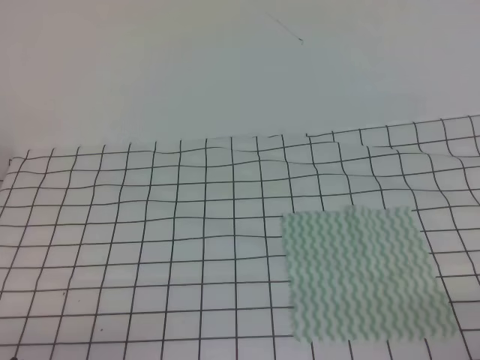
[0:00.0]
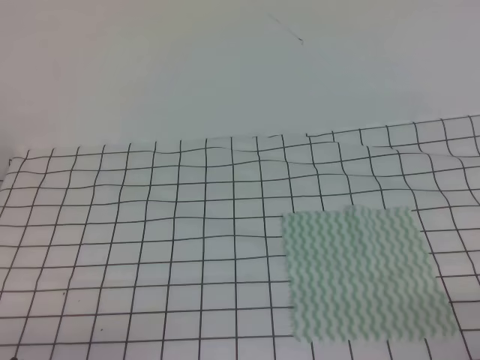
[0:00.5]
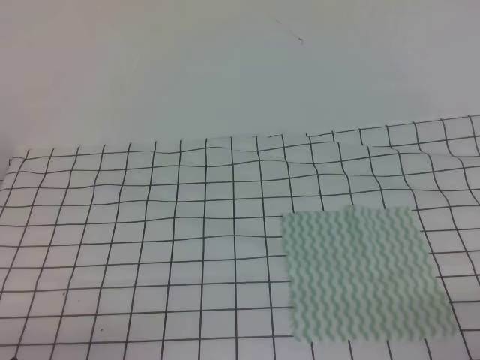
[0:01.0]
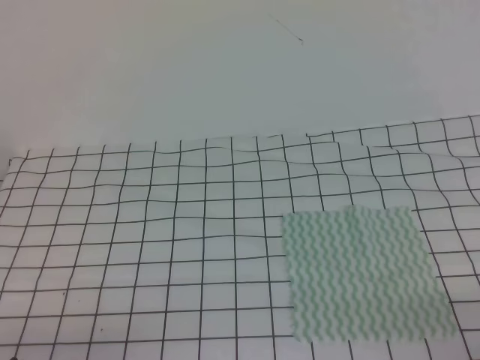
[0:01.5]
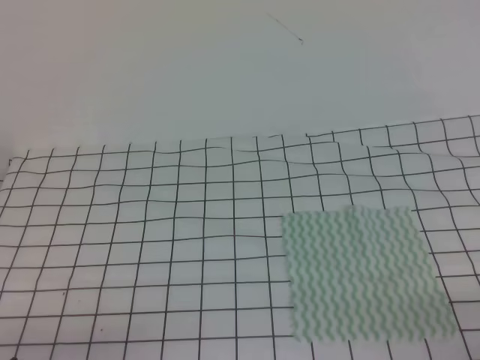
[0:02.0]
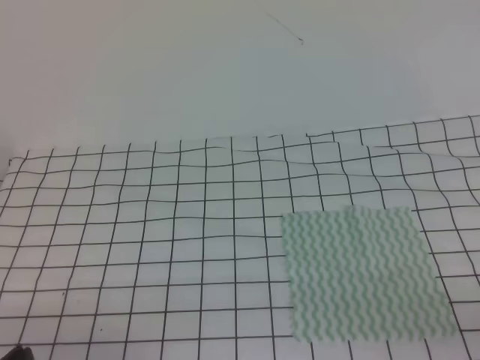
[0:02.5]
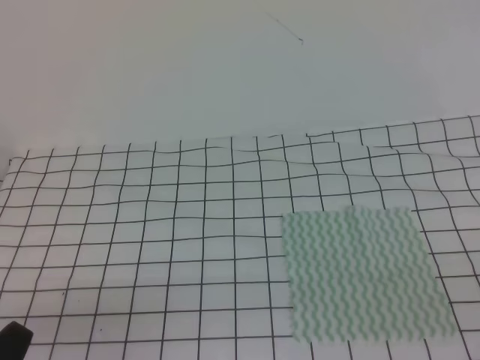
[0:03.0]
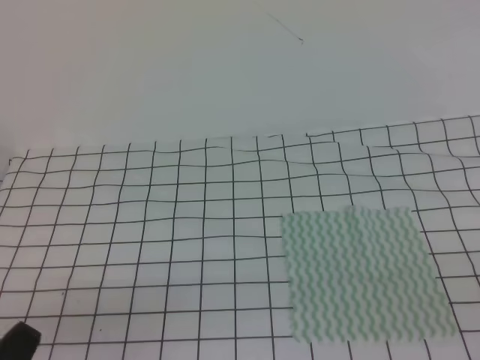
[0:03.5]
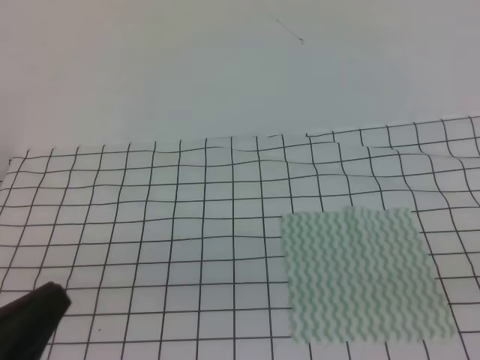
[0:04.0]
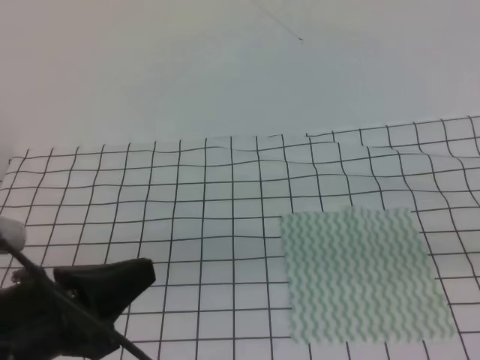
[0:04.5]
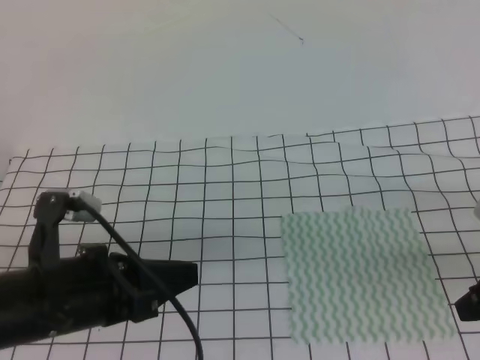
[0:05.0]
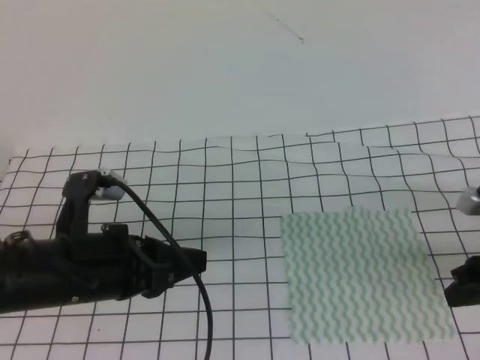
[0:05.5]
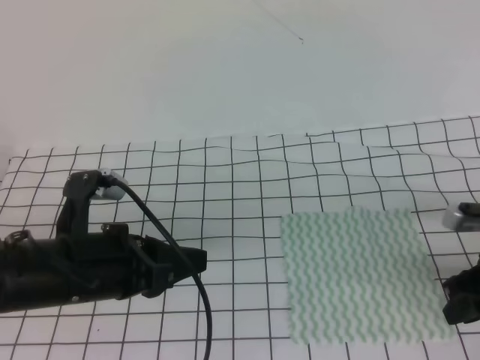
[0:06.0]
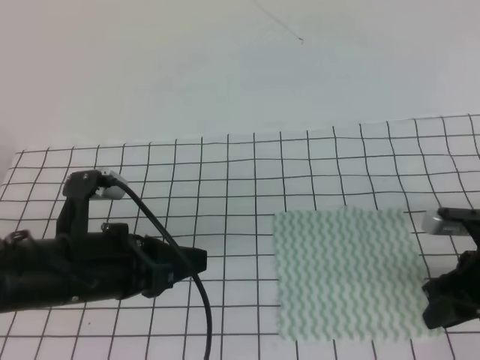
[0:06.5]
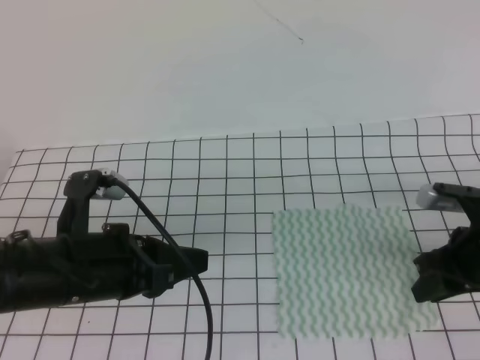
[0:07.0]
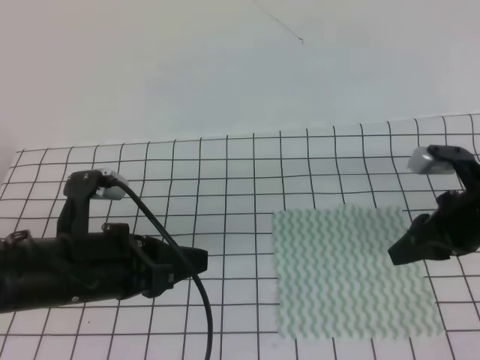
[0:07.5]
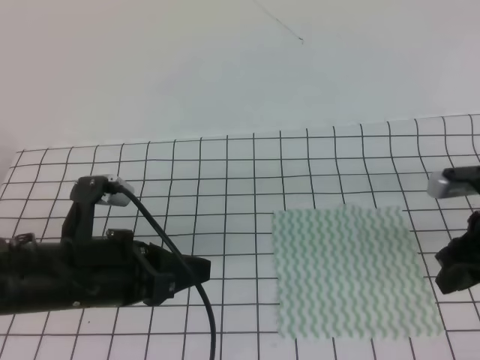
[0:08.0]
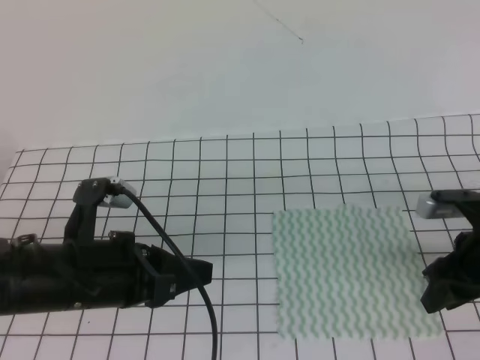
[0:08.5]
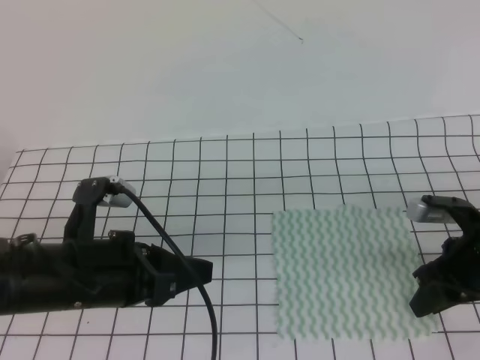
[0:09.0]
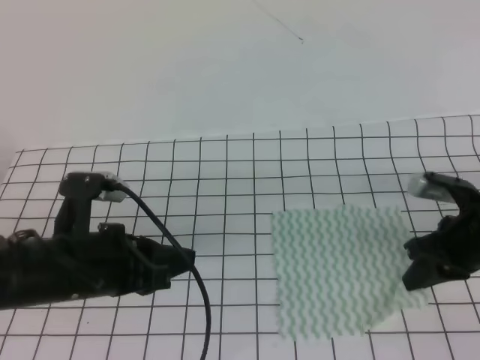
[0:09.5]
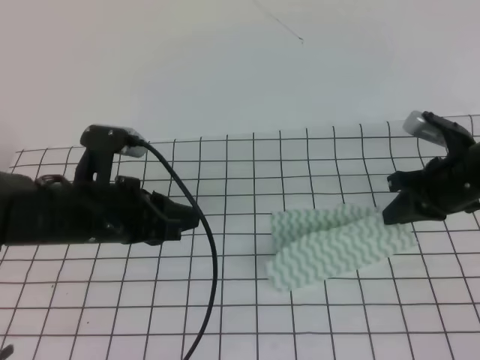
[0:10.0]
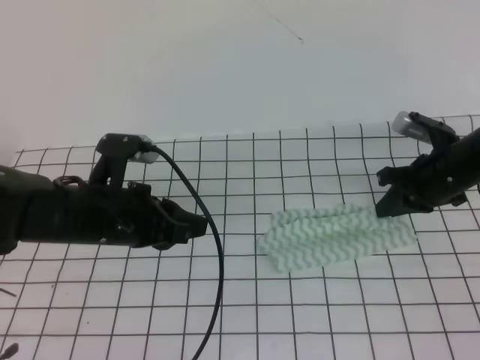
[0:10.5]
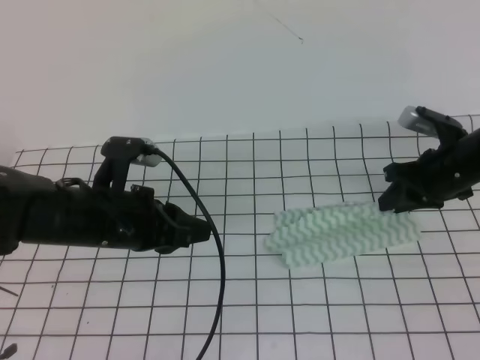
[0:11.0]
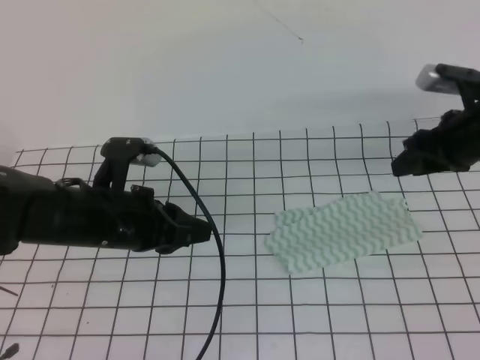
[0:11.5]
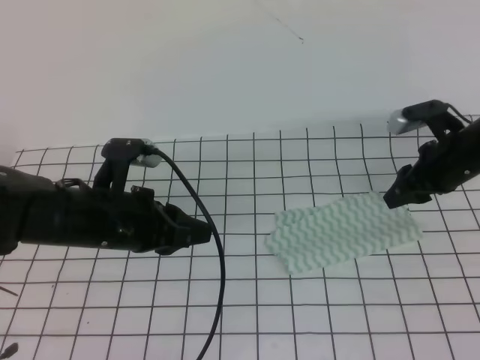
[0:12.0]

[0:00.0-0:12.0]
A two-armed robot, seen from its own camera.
Step, 0:00.0 to 0:07.5: Fold the towel upwards with the right gripper.
Step, 0:08.0 to 0:11.5: Tidy up the towels.
0:00.0 to 0:02.0: Both grippers stay about where they are.
0:02.0 to 0:04.0: The grippers both shift upward by approximately 10 cm.
0:04.0 to 0:06.0: The left gripper goes about 15 cm forward and to the right, and opens its fingers, while the right gripper travels forward and downward by about 25 cm, and opens its fingers.
0:08.0 to 0:10.0: Both grippers move forward, about 5 cm. The right gripper closes.
0:10.0 to 0:12.0: The right gripper opens its fingers.

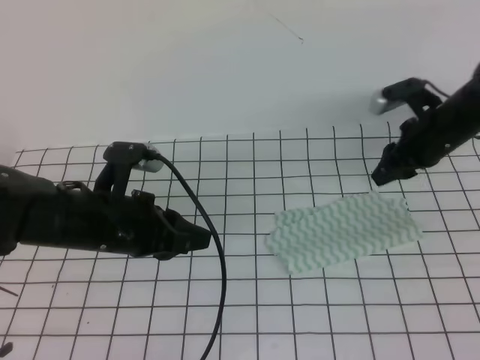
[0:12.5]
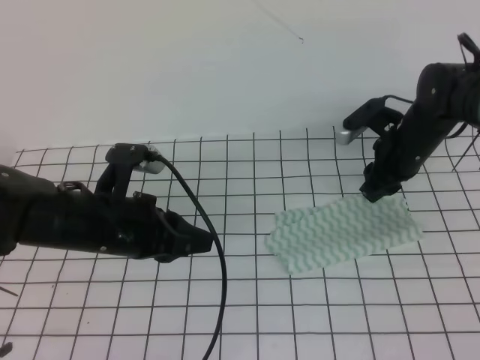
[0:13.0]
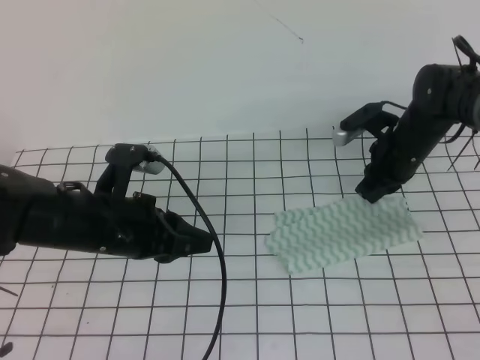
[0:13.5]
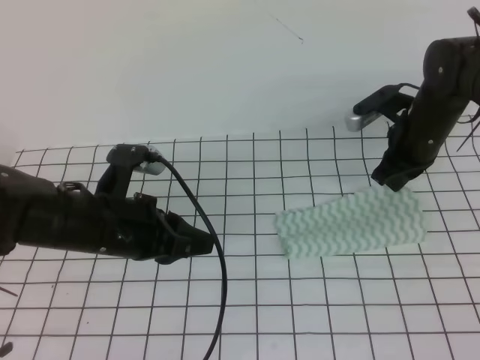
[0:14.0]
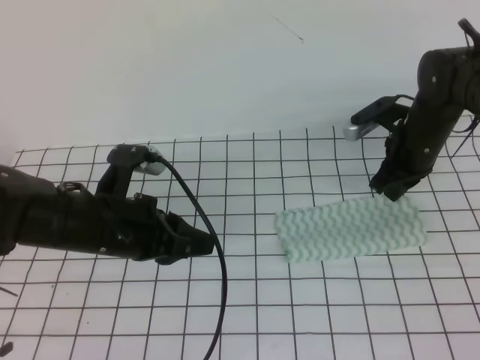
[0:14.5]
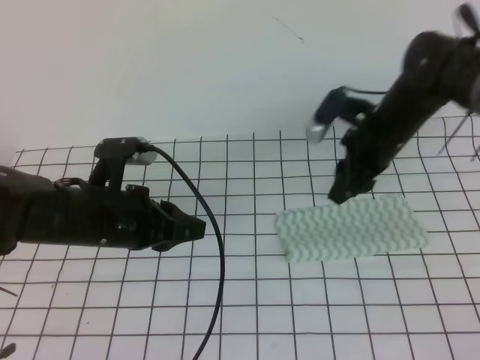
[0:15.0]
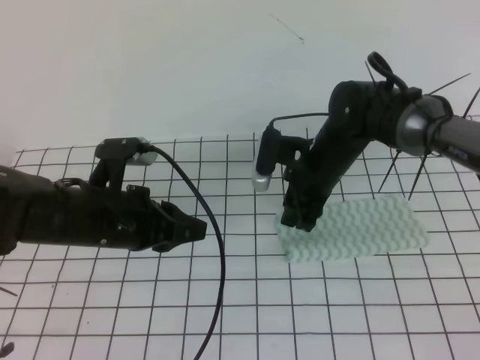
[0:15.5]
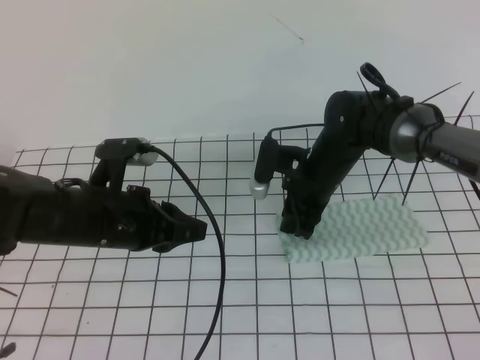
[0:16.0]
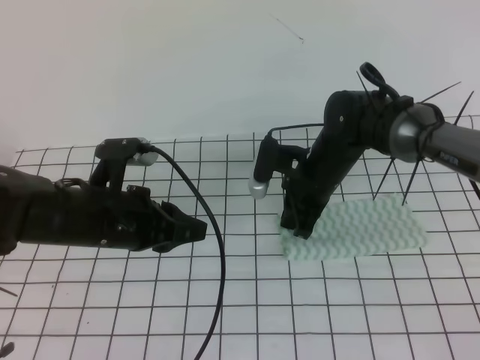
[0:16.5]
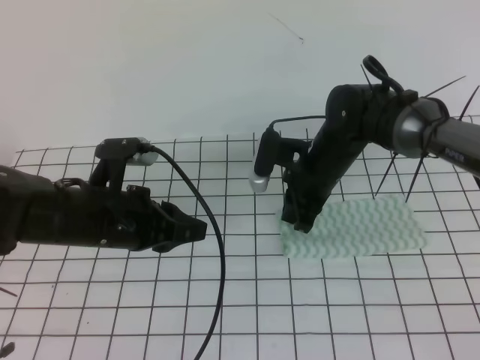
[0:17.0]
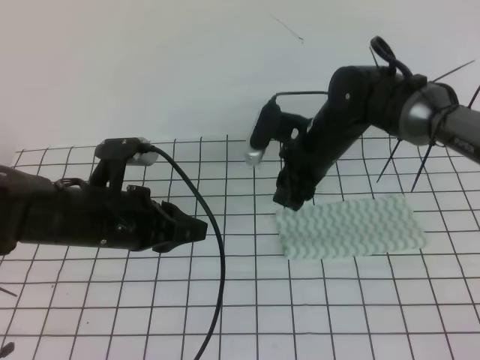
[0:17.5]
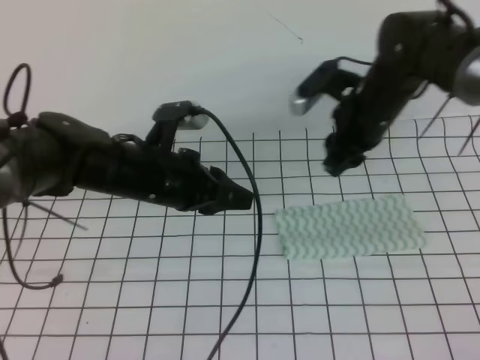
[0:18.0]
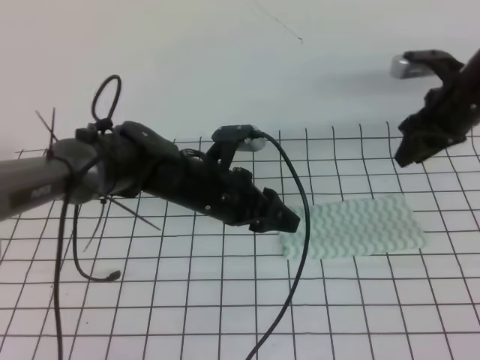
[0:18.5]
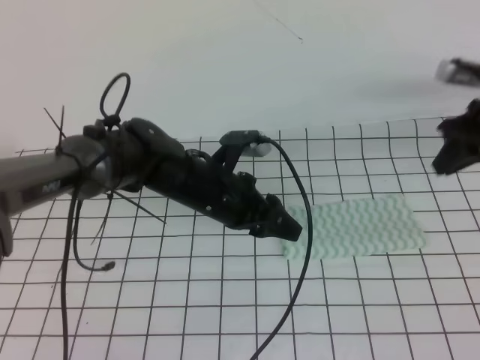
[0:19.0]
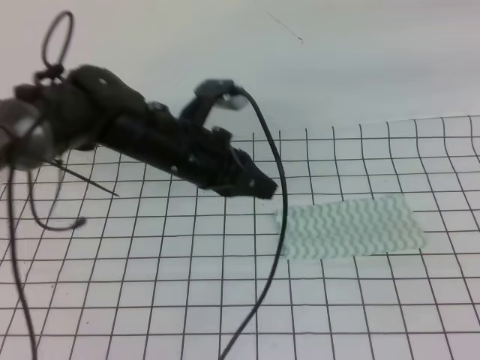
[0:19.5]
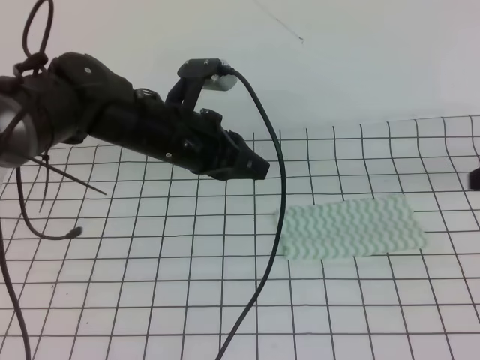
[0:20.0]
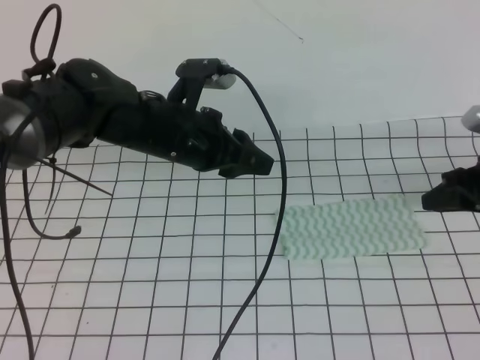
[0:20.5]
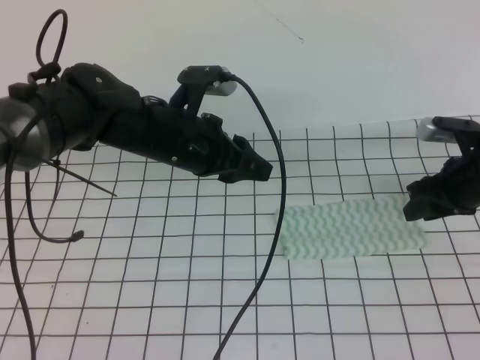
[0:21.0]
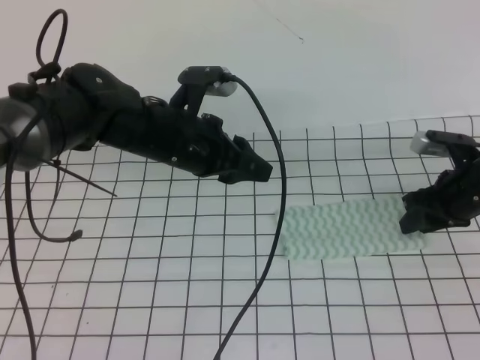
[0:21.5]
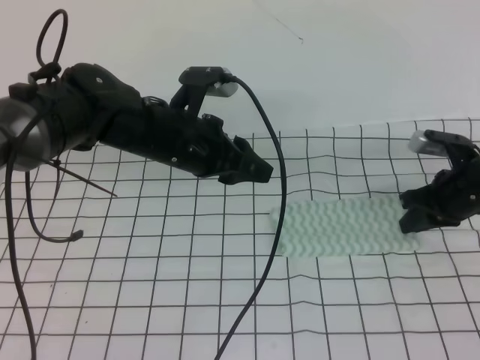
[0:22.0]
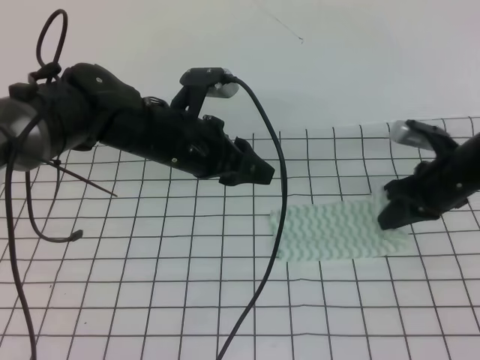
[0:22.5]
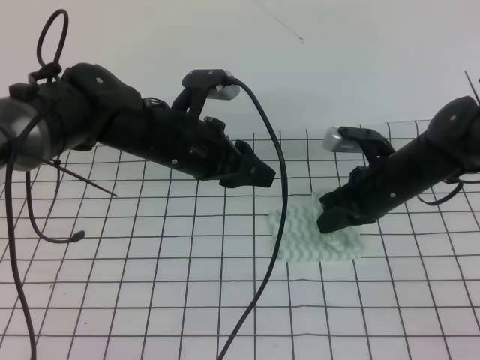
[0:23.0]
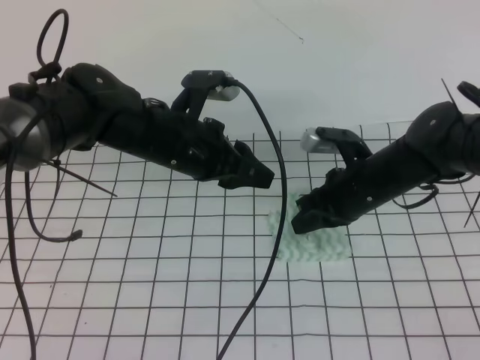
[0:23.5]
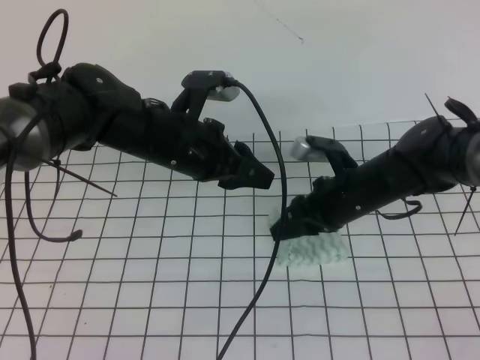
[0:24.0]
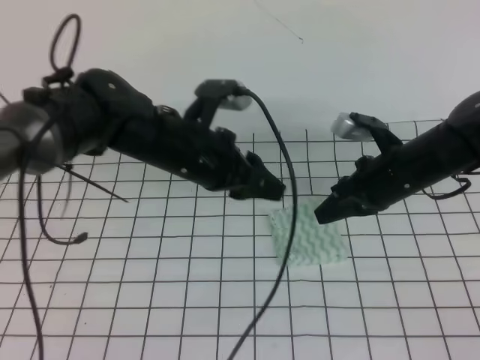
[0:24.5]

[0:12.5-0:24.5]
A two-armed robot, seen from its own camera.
Step, 0:12.5 to 0:14.5: Fold the towel from right to left with the right gripper.
Step, 0:15.0 to 0:16.0: Tidy up the towels.
0:12.5 to 0:14.5: The right gripper closes its fingers.
0:14.5 to 0:16.5: The right gripper shifts about 15 cm to the left, and closes.
0:16.5 to 0:18.5: The left gripper heads to the right and forward, covering roughly 10 cm, and opens up. Meanwhile the right gripper travels to the right and upward by approximately 20 cm, and opens up.
0:18.5 to 0:20.5: The left gripper is displaced upward by about 10 cm, and closes, then reopens. Meanwhile the right gripper goes about 10 cm backward and to the right, moves roughly 15 cm upward and comes back, and closes, then opens again.
0:20.5 to 0:22.5: The right gripper heads to the left, covering about 5 cm, and closes.
0:22.5 to 0:24.5: The right gripper moves to the left, roughly 5 cm, and opens and closes again.

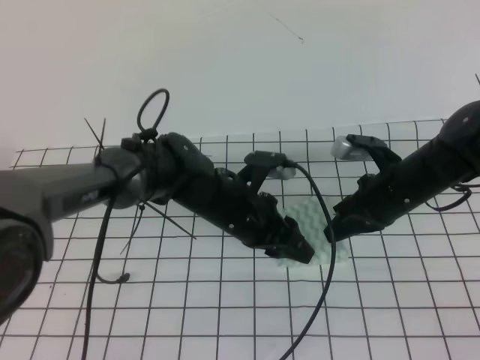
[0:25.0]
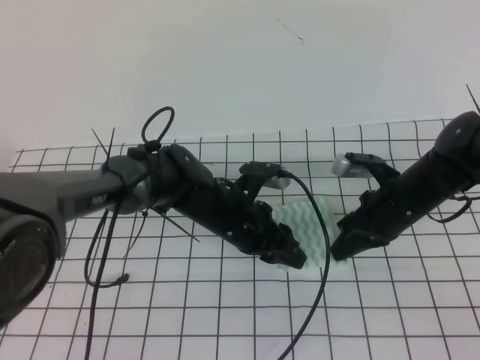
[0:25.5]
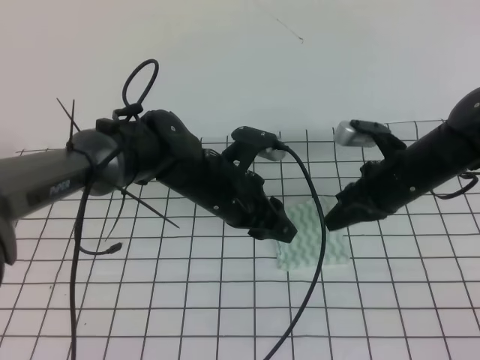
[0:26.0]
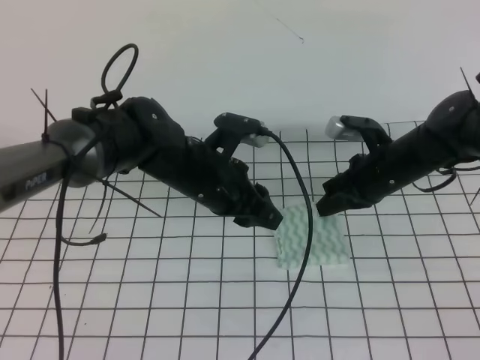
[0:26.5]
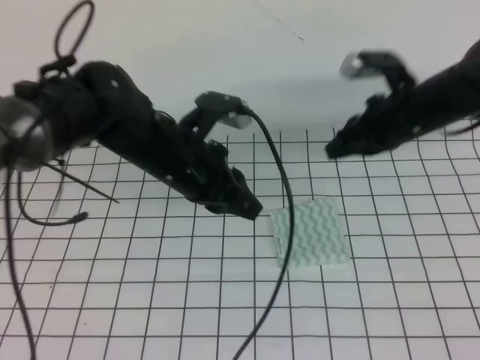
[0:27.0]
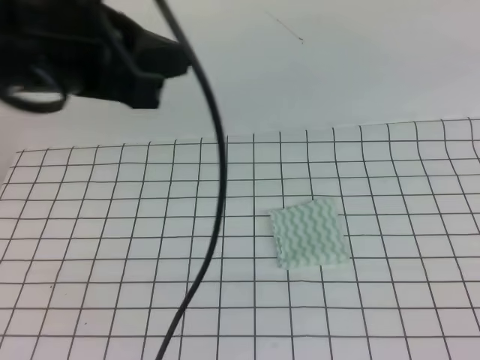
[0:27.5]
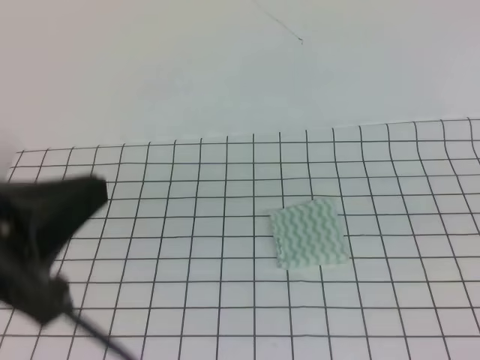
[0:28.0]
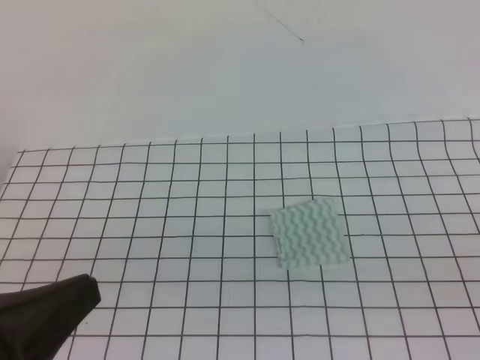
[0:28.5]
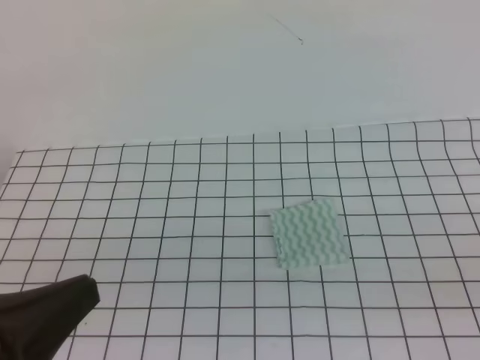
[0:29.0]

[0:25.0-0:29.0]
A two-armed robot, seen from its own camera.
0:25.0 to 0:27.0: The left gripper moves upward and to the left, approximately 10 cm, and closes; the right gripper moves upward, approximately 10 cm.
0:27.0 to 0:29.0: The left gripper moves backward and to the left, approximately 30 cm; the right gripper is displaced backward by some 35 cm.
